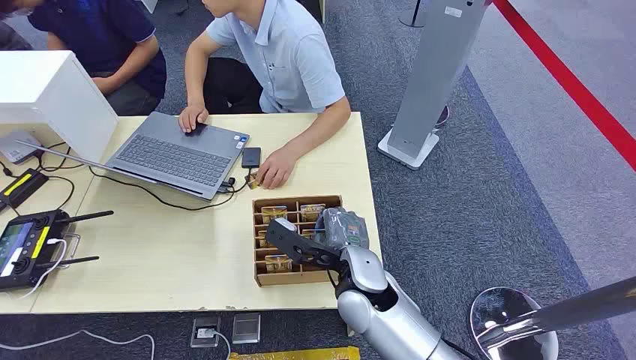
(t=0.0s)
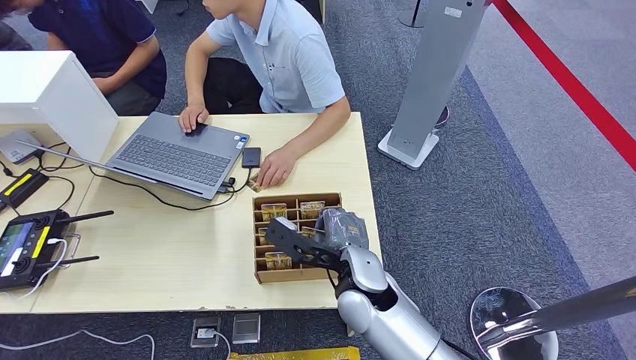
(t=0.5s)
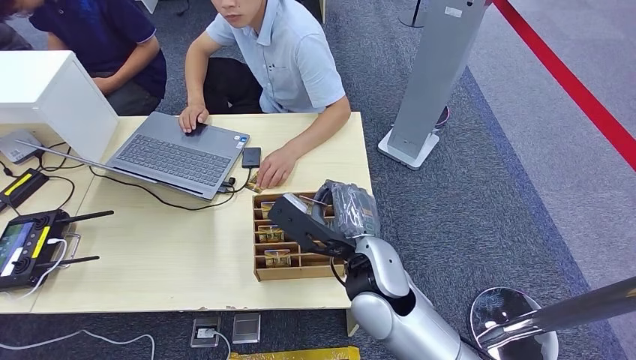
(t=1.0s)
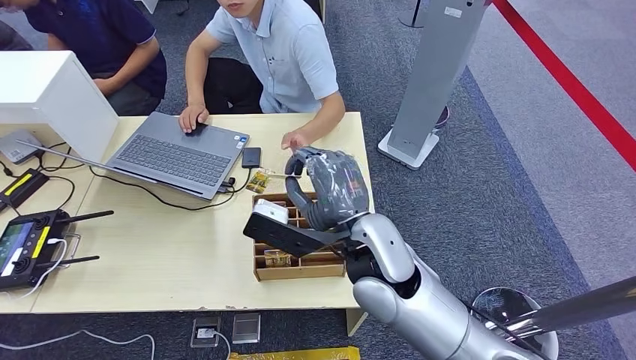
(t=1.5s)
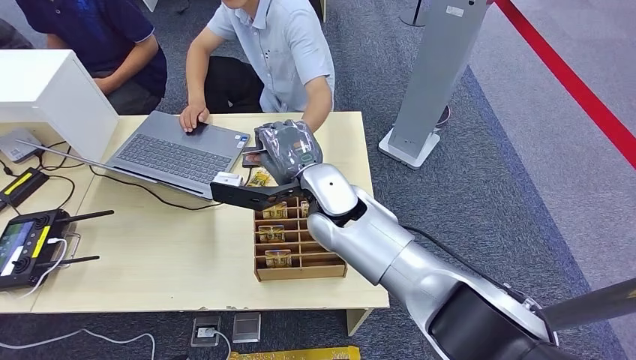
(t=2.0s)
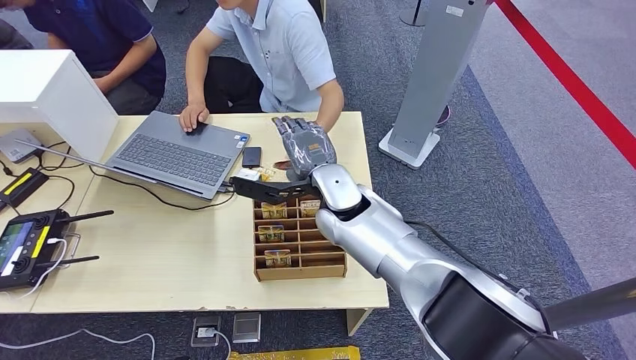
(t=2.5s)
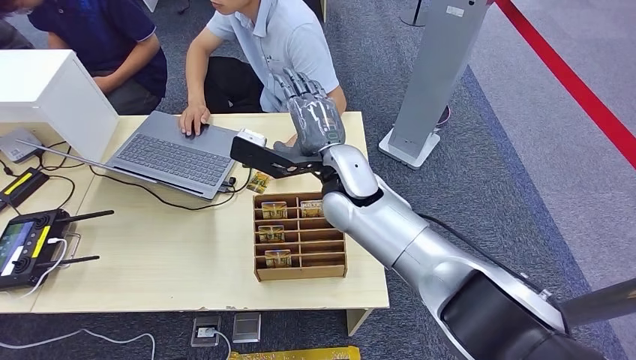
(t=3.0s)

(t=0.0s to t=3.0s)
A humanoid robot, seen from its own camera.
Step, t=0.0s - t=1.0s: Pick up the room card from the card holder.
Step, t=2.0s - t=3.0s: Hand the room card to the target.
t=1.5s - t=3.0s: The right hand heads upward and to the right, covering about 10 cm.
